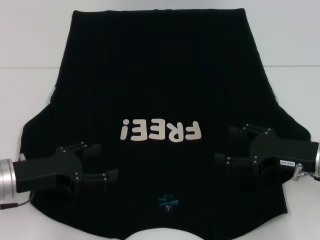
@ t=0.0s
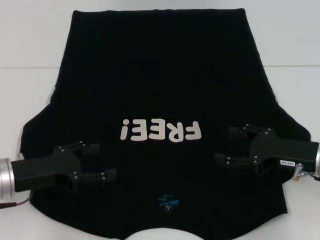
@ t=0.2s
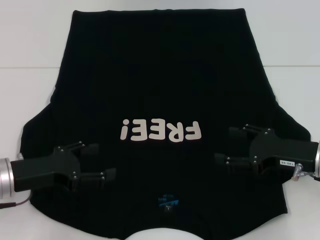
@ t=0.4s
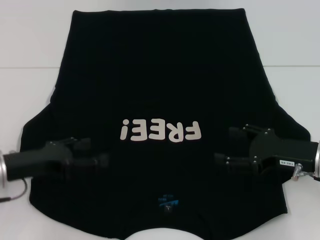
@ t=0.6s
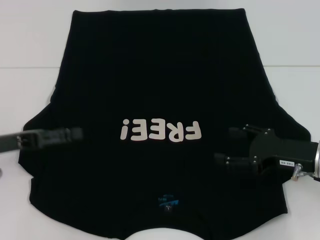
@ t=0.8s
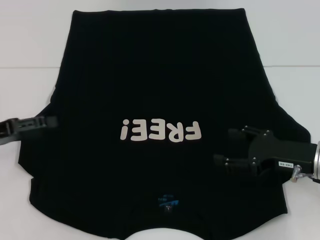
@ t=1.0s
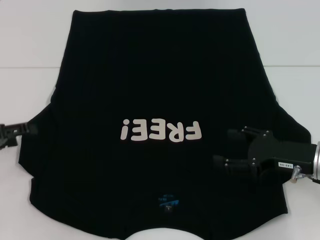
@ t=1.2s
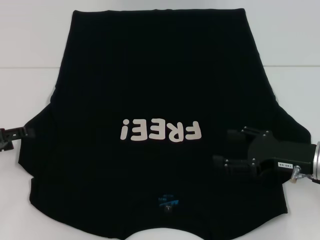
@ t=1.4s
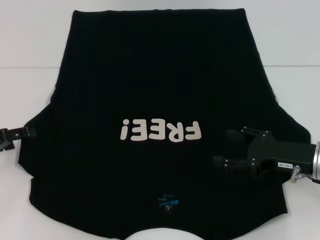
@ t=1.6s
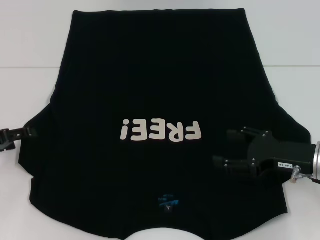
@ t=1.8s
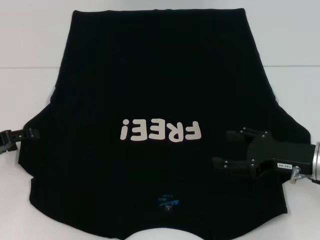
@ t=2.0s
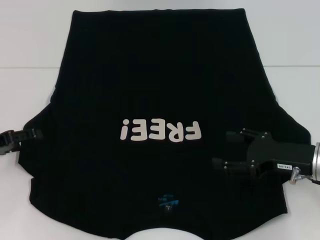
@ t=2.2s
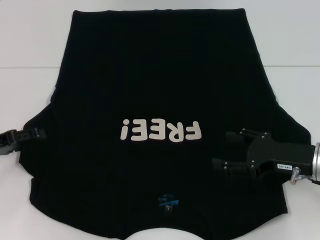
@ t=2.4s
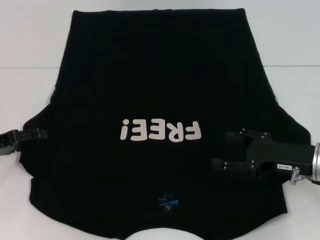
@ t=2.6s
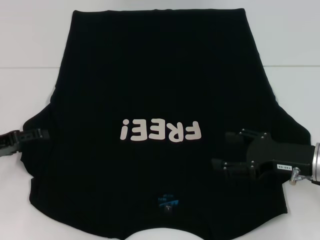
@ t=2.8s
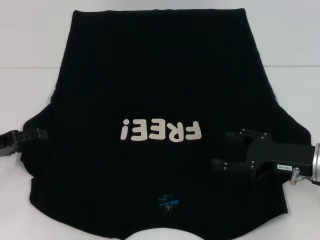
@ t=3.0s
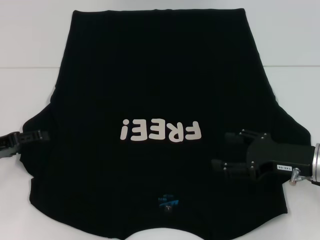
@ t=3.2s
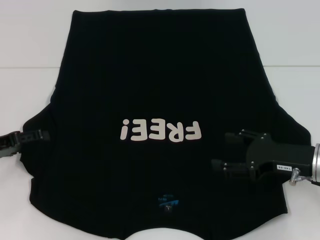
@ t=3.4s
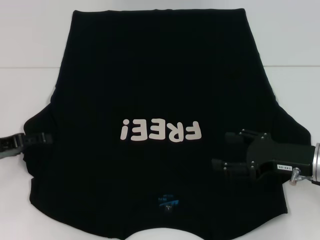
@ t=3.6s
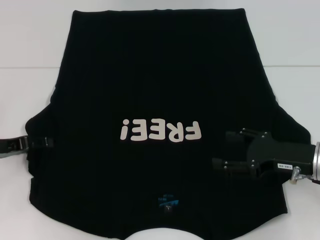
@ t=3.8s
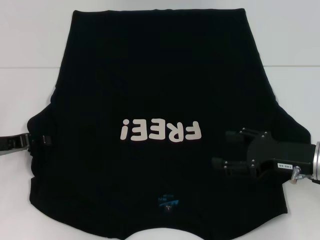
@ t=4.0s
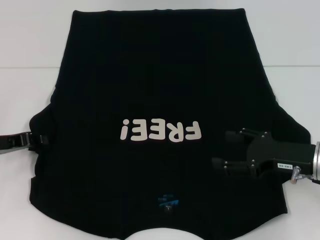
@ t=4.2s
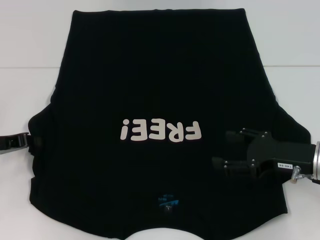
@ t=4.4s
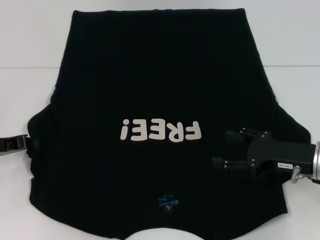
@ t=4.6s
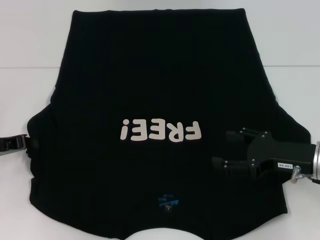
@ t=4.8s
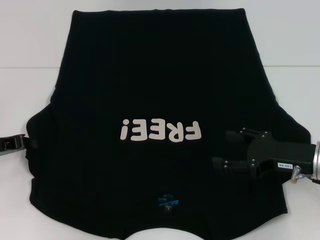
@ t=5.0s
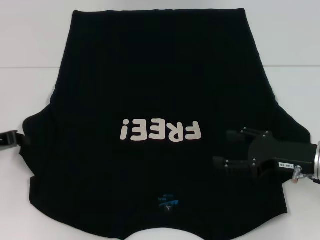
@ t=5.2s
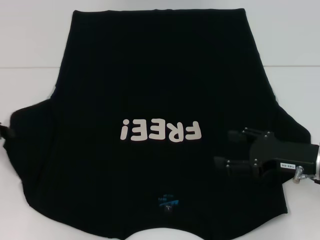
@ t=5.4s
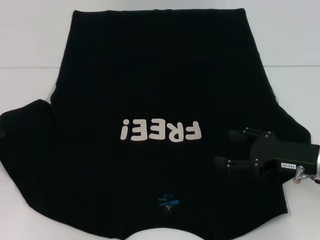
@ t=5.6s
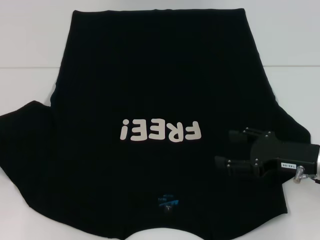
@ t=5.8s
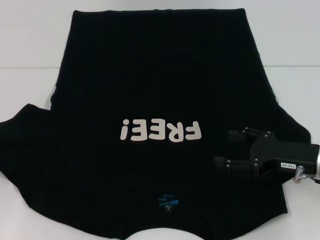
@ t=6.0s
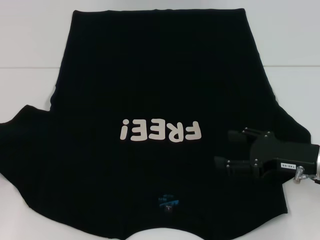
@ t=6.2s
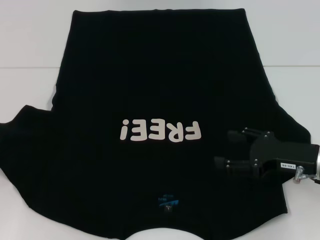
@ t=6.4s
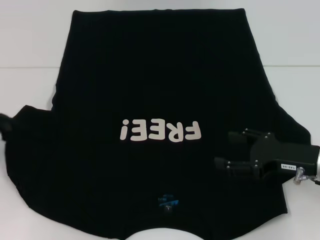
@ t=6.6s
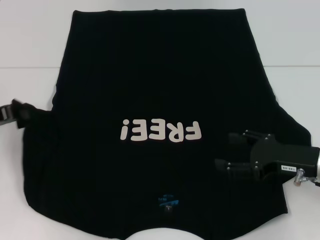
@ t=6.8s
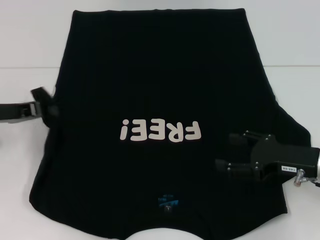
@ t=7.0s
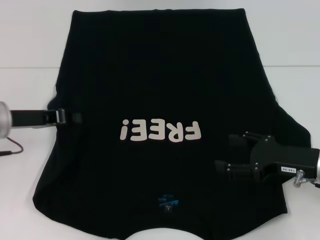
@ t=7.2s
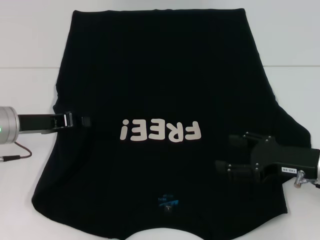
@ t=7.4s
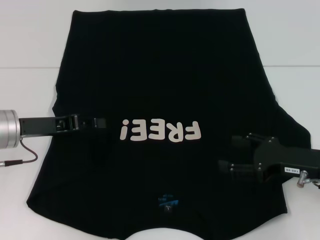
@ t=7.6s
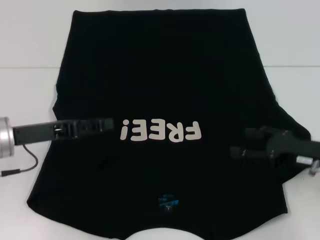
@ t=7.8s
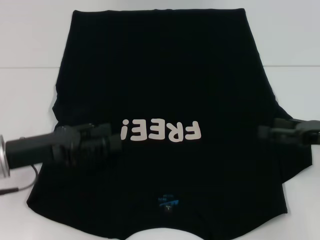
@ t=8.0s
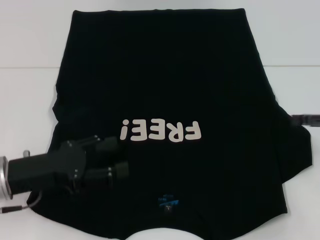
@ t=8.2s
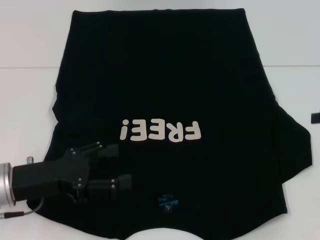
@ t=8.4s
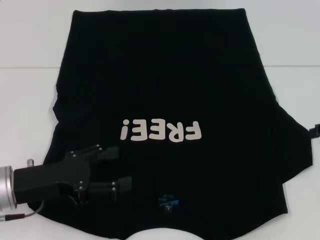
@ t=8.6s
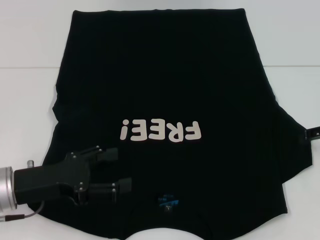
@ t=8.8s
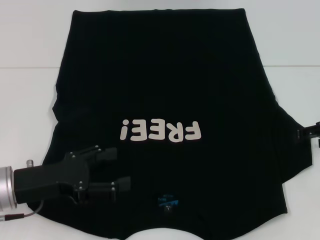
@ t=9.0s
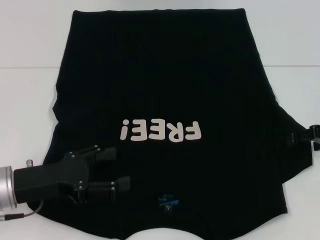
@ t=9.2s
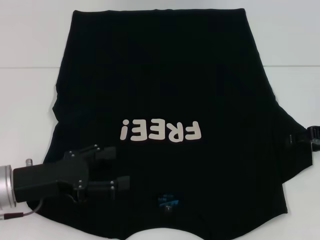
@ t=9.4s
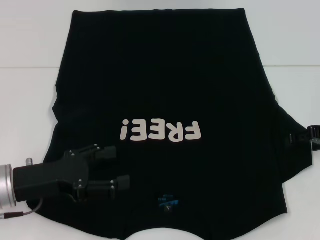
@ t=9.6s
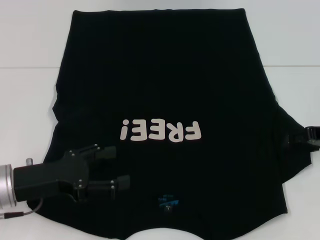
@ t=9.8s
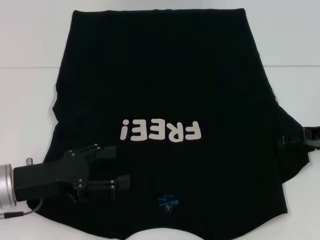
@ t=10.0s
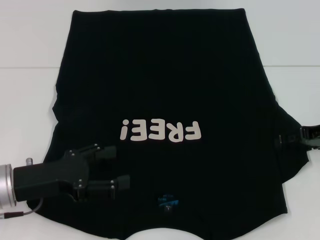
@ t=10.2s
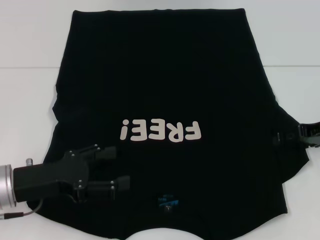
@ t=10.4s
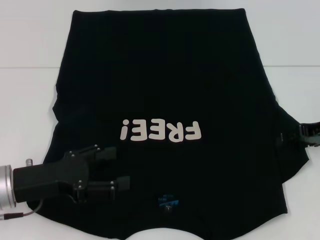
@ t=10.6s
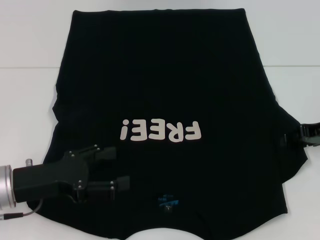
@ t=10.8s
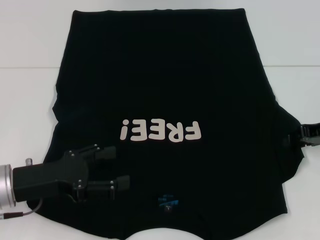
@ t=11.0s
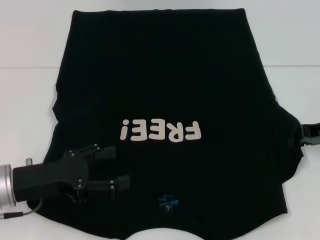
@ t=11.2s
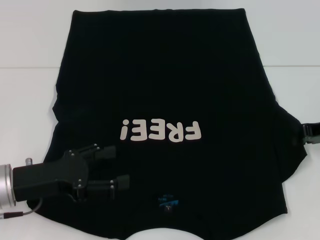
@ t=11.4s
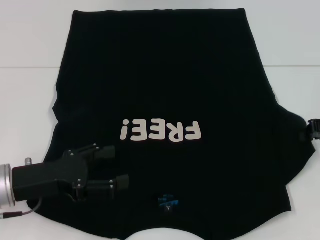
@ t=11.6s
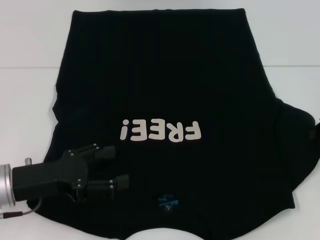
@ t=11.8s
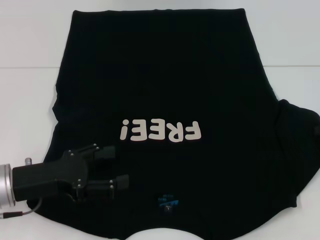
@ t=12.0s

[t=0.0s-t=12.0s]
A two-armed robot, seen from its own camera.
Step, t=0.0s to t=8.0s: Fold the bottom left sleeve with your left hand.
t=0.0s to t=1.6s: The left gripper moves to the left, about 10 cm.
t=1.6s to t=3.0s: The grippers move only a little.
t=3.0s to t=4.4s: The left gripper closes its fingers.
t=4.4s to t=6.0s: The left gripper goes roughly 5 cm to the left.
t=6.0s to t=7.6s: The left gripper goes roughly 15 cm to the right.
t=7.6s to t=9.0s: The right gripper travels to the right, forward and upward by about 10 cm. The left gripper shifts about 10 cm backward, and opens its fingers.
t=9.0s to t=10.4s: The grippers make only small movements.
t=10.4s to t=12.0s: The right gripper changes place by approximately 5 cm, and closes up.

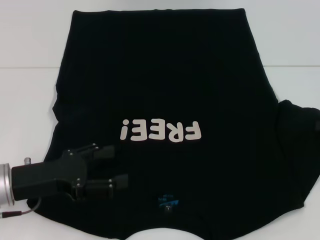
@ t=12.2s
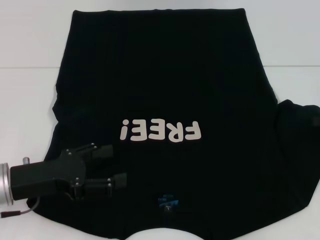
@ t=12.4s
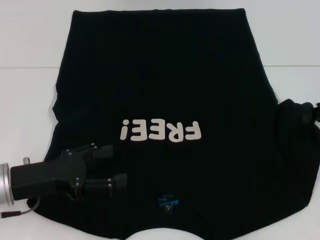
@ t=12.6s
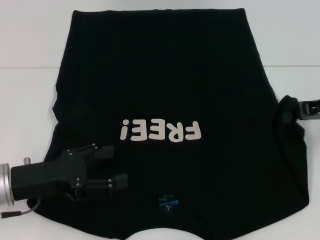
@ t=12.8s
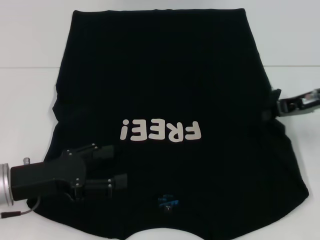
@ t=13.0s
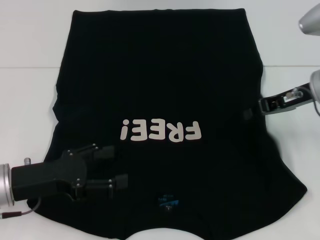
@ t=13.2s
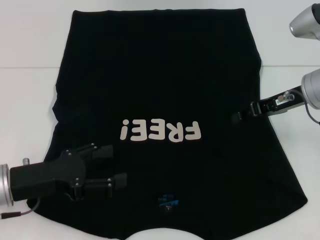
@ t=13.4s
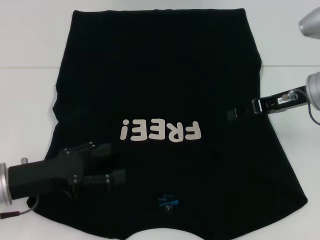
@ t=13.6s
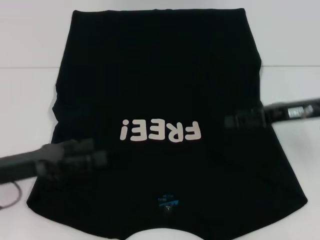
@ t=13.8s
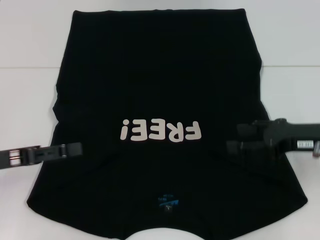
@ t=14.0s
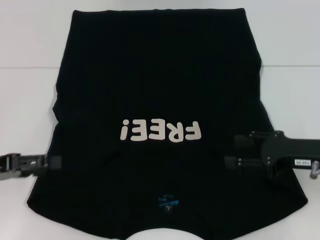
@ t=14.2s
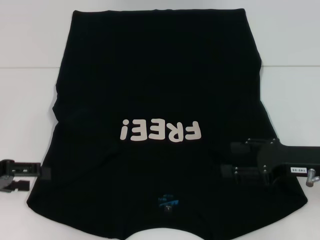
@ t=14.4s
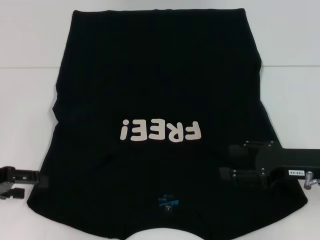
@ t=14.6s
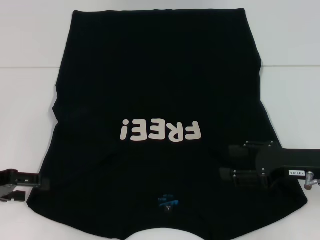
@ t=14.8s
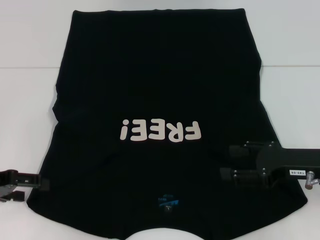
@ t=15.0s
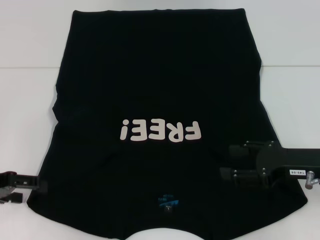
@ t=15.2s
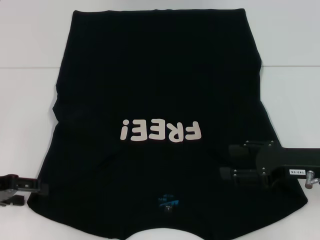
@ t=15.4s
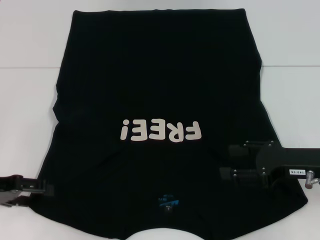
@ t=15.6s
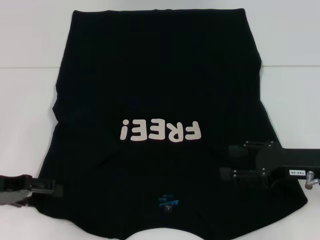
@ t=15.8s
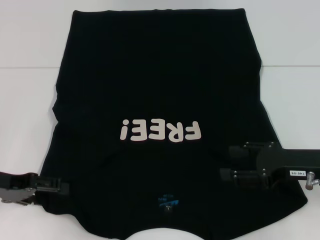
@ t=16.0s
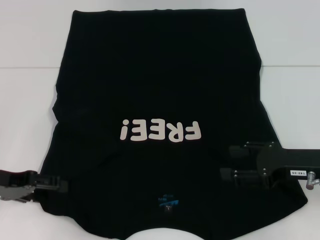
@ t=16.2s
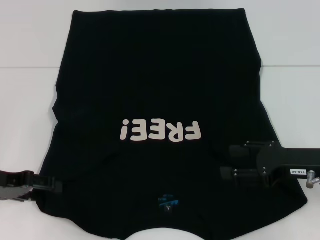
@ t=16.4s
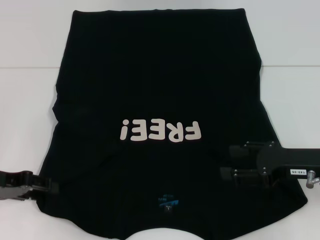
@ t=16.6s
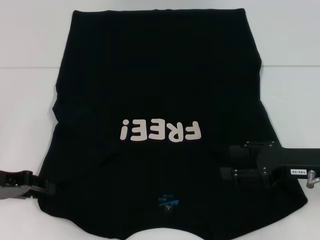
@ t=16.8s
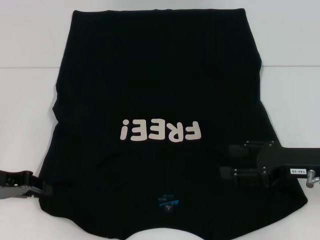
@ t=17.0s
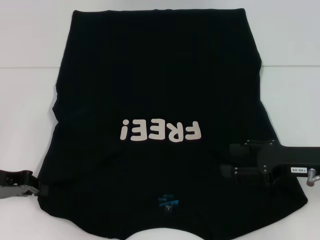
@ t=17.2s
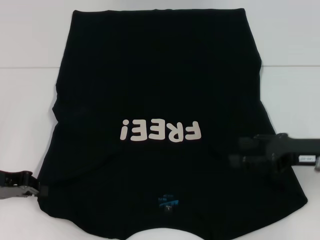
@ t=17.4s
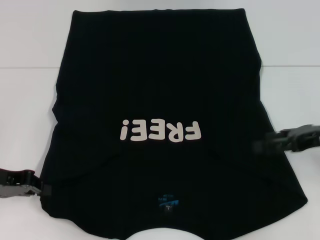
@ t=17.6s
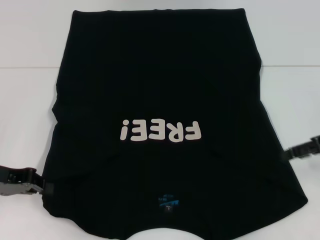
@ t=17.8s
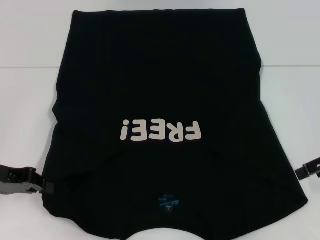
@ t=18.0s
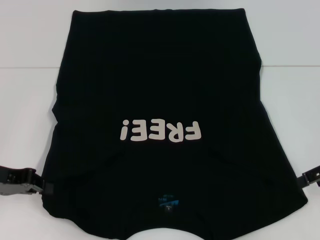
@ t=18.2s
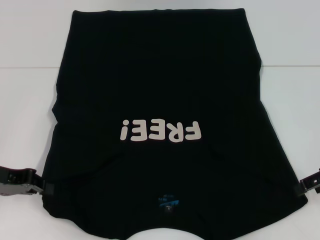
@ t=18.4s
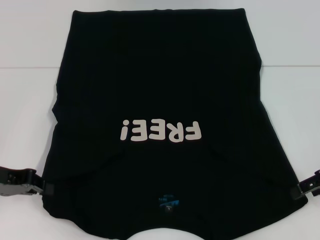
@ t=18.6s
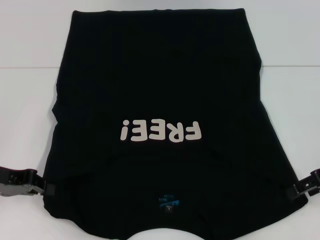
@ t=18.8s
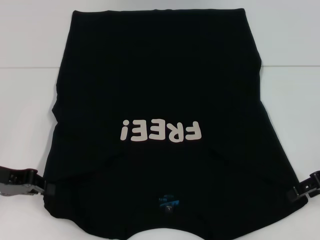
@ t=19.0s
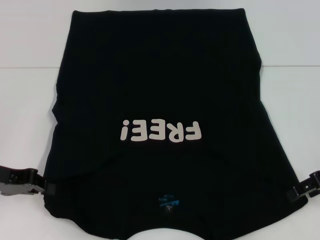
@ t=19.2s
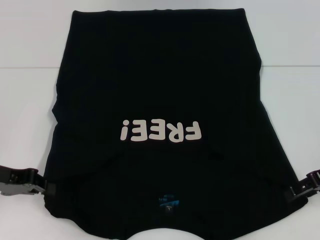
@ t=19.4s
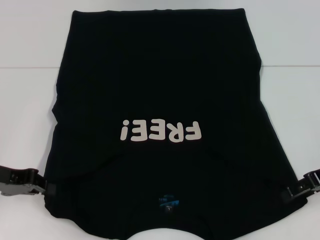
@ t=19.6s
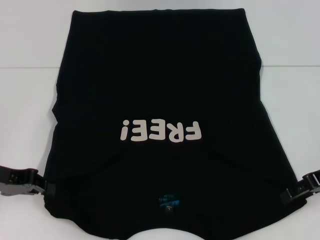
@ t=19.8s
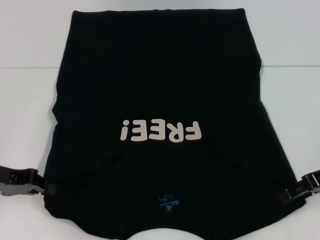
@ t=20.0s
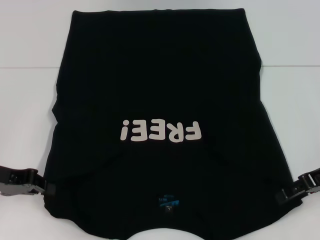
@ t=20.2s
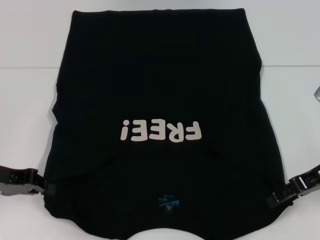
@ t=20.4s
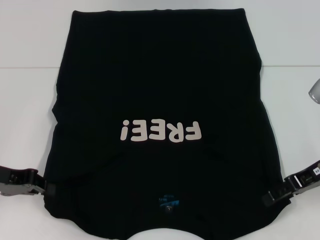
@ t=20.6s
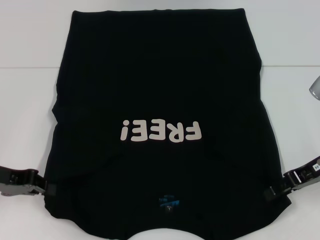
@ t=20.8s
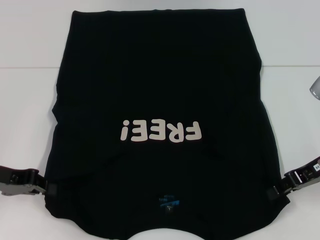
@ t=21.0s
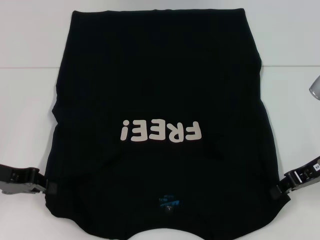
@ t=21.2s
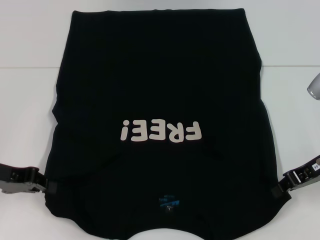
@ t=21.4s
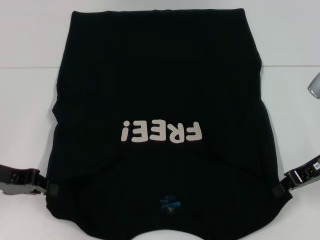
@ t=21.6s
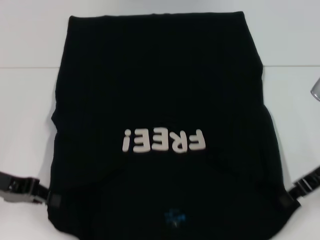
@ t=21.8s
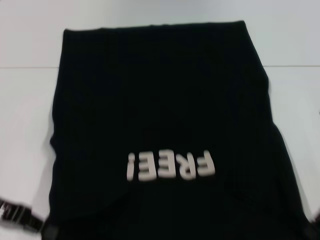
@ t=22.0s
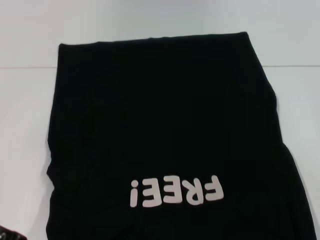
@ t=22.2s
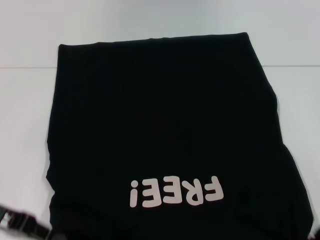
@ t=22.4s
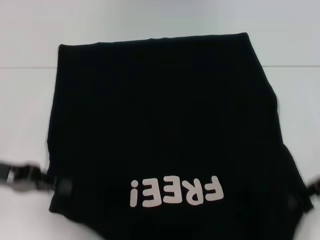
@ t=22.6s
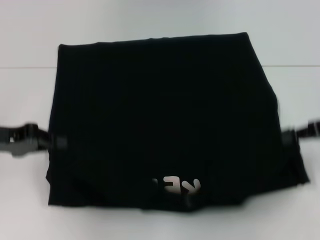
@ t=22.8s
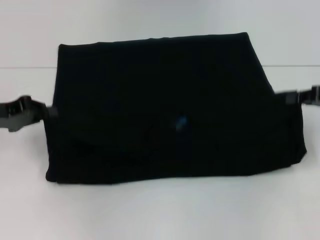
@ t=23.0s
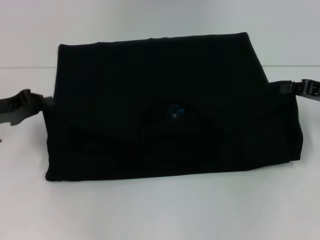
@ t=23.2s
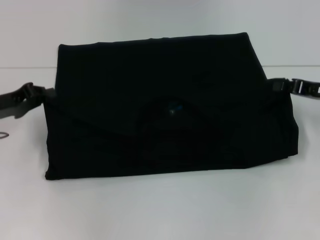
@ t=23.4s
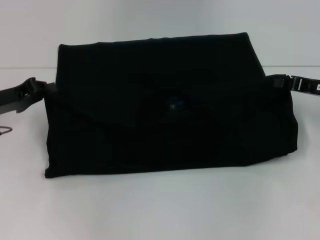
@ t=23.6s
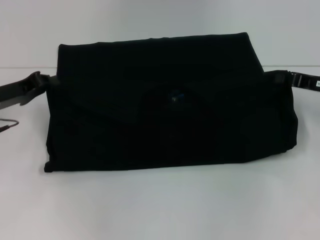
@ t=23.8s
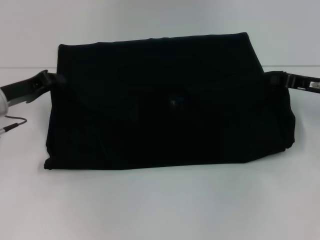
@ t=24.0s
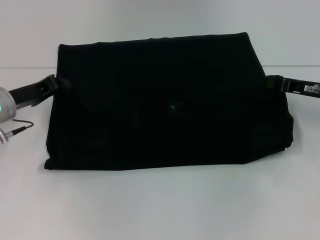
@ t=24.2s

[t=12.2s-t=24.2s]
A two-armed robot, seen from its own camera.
Step, t=14.0s to t=21.6s: Grab the bottom left corner with your left hand.
Step, t=14.0s to t=21.6s: Grab the bottom right corner with your right hand.
t=12.2s to t=13.8s: The right gripper shifts about 10 cm to the left, and opens its fingers.
t=13.8s to t=15.2s: The left gripper is displaced to the left by about 5 cm, while the right gripper is displaced backward and downward by some 10 cm, and opens its fingers.
t=15.2s to t=16.6s: The grippers move only a little.
t=16.6s to t=18.2s: The right gripper goes approximately 10 cm to the right and upward; the left gripper closes up.
t=18.2s to t=19.8s: There are only small adjustments of the grippers.
t=19.8s to t=21.2s: The right gripper closes.
t=22.6s to t=24.2s: Both grippers move forward, roughly 10 cm.
